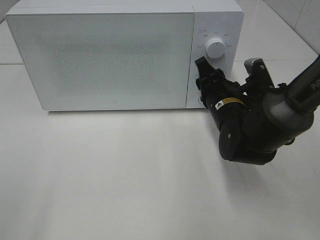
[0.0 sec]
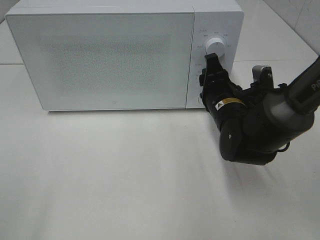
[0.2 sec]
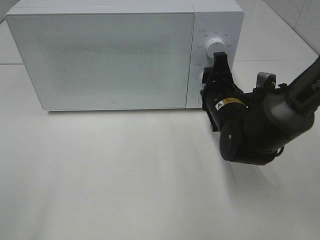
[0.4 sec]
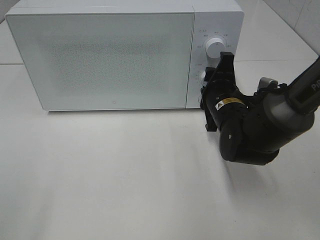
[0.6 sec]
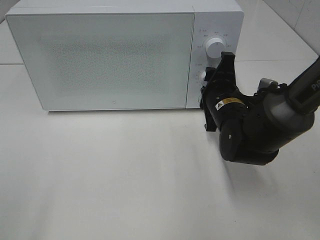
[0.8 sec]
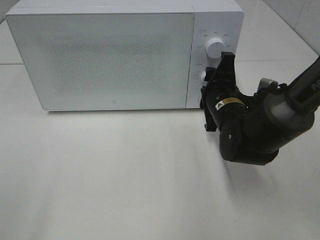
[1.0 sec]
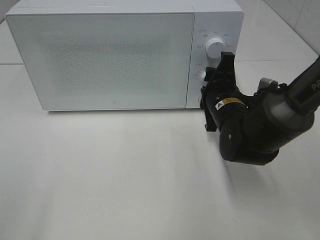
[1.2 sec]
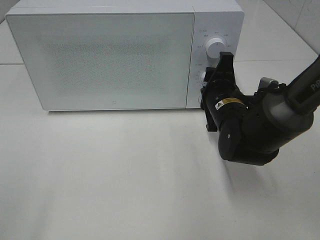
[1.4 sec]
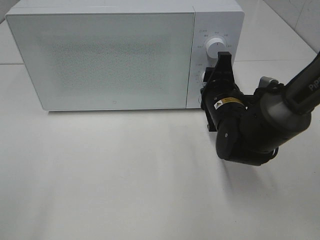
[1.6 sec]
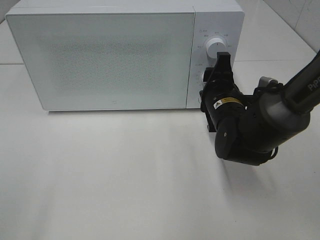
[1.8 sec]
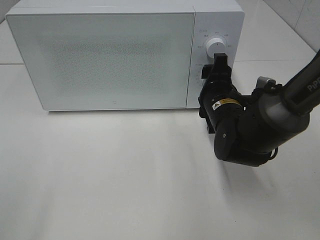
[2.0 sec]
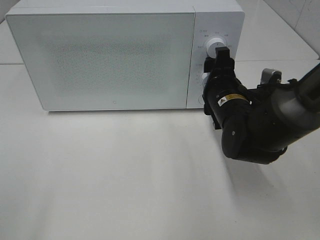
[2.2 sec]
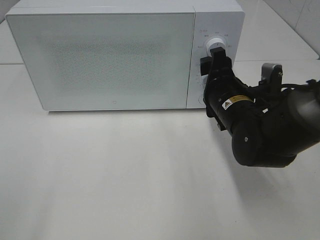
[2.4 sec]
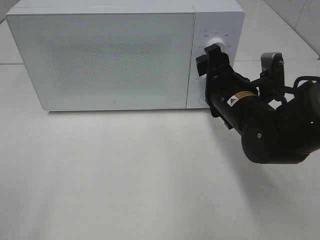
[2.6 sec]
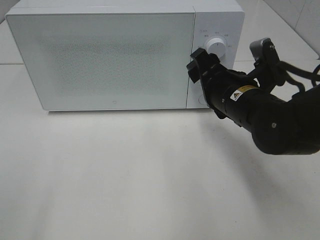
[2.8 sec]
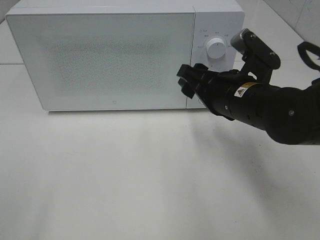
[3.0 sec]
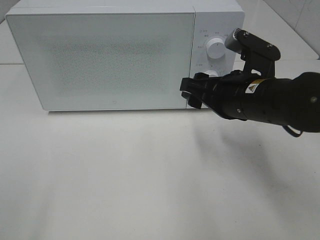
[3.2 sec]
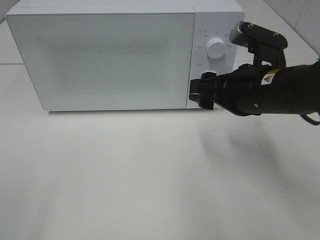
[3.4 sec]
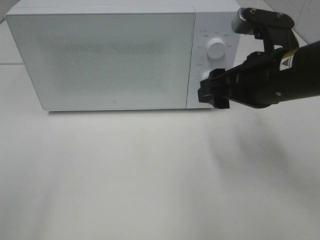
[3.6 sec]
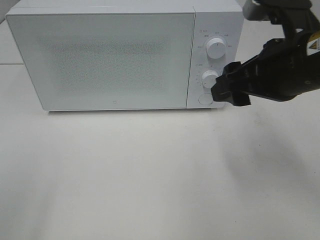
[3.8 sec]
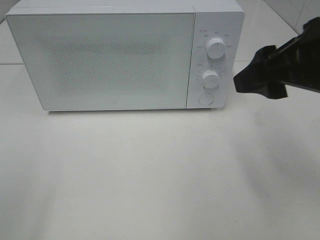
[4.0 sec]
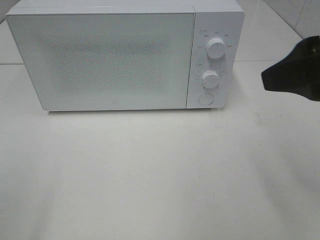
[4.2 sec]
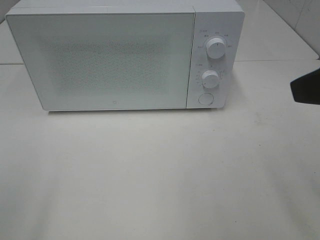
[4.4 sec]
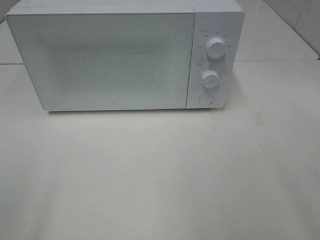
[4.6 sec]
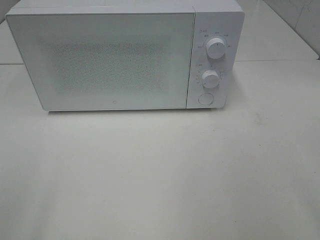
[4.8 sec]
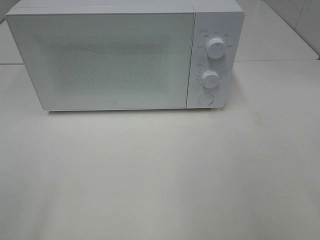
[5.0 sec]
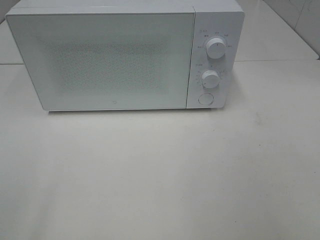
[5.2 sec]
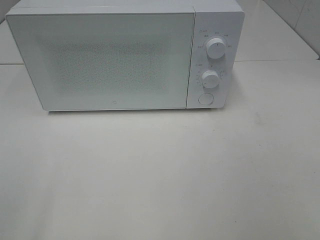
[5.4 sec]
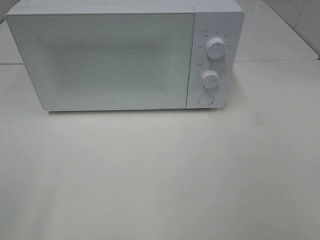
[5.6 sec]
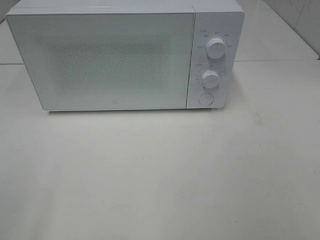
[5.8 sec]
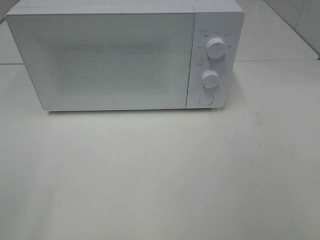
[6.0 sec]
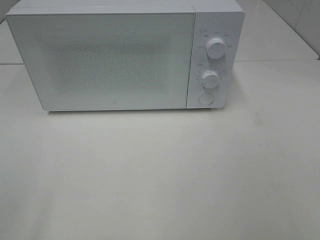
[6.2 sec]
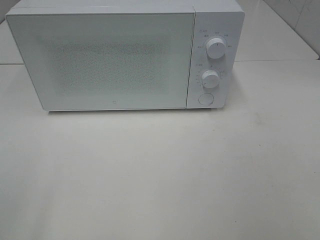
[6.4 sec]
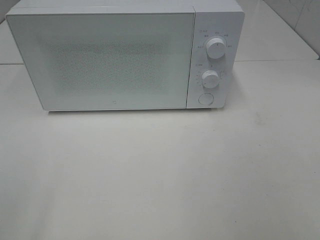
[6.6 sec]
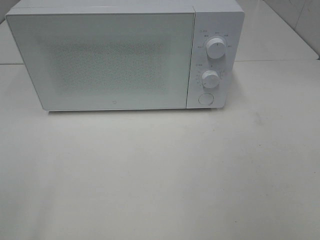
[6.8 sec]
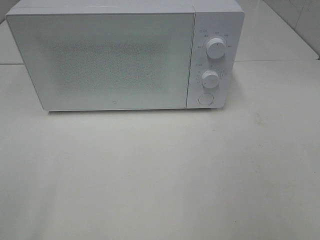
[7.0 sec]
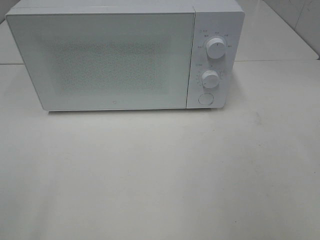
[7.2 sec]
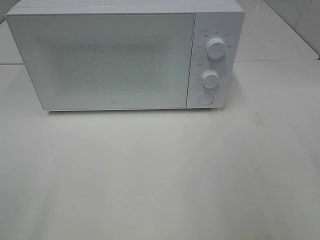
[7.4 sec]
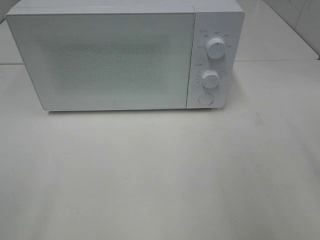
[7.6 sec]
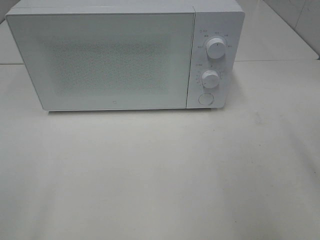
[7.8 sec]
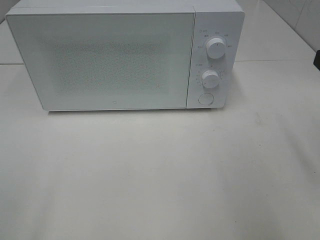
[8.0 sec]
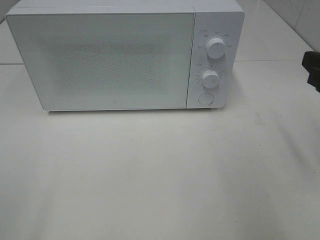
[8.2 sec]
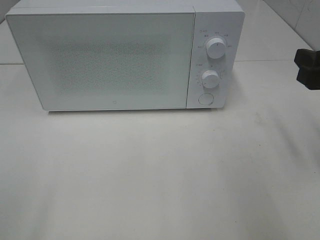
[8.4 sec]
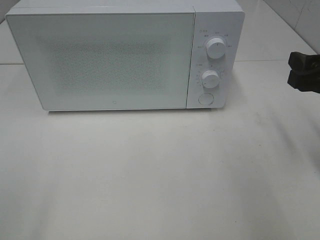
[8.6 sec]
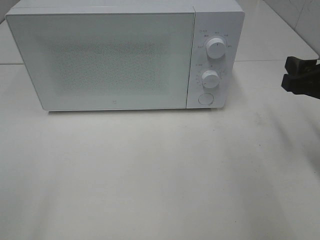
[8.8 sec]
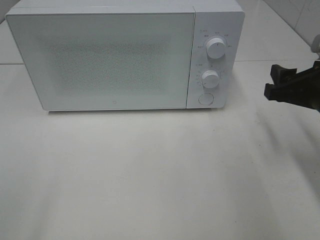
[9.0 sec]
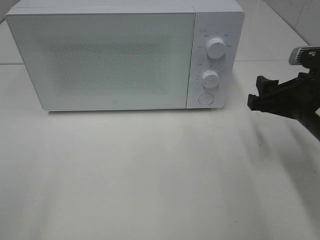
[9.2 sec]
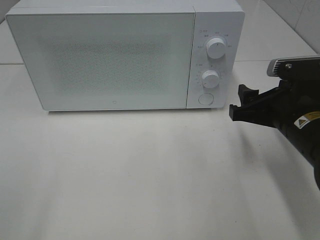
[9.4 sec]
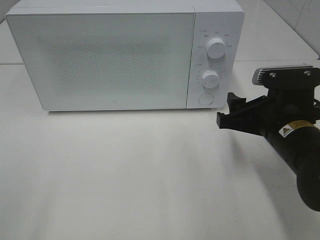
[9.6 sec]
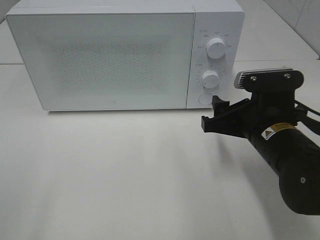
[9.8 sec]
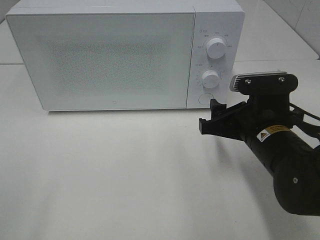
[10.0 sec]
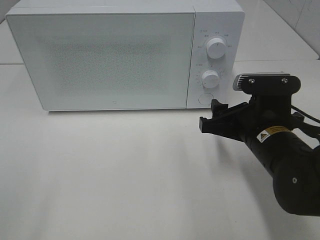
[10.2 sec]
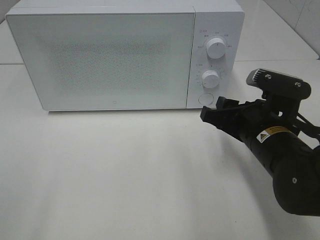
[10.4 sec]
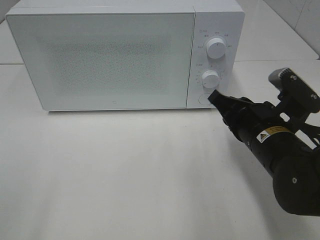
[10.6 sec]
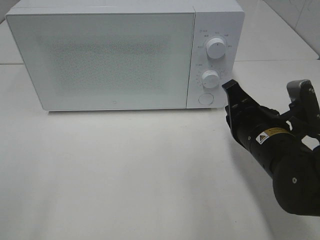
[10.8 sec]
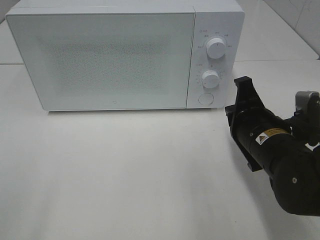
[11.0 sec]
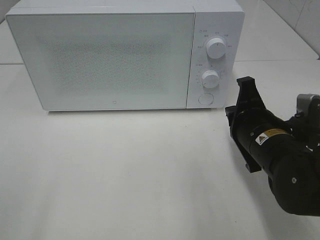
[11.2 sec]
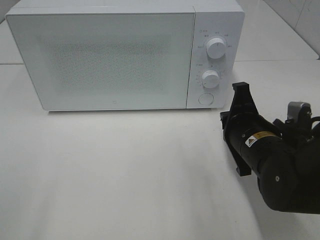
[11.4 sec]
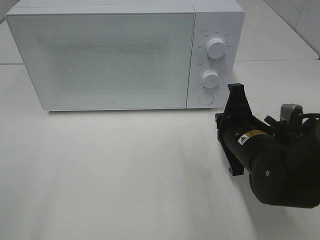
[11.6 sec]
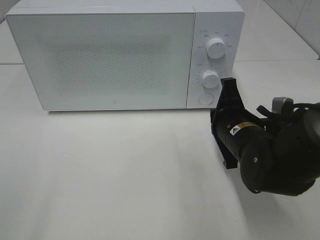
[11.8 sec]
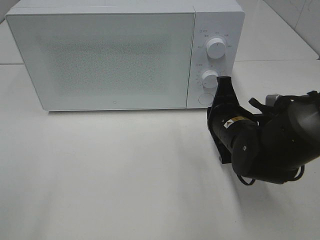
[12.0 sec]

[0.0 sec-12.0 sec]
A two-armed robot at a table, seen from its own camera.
Task of the whole recording: Heat the burger.
1.6 sec to 3.0 sec: The right gripper shifts roughly 10 cm upward and backward.
3.0 sec to 4.4 sec: The right gripper is displaced upward, backward and to the right by roughly 25 cm.
4.4 sec to 6.0 sec: The right gripper shifts roughly 15 cm backward and to the right.
7.6 sec to 9.0 sec: The right gripper is displaced downward and forward by approximately 15 cm.
9.0 sec to 10.4 sec: The right gripper heads to the left, covering about 10 cm.
10.4 sec to 12.0 sec: The right gripper ends up roughly 5 cm from where it was, and closes its fingers.

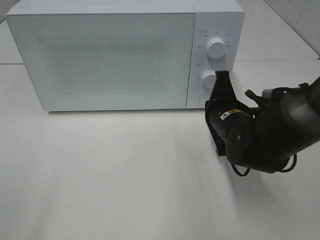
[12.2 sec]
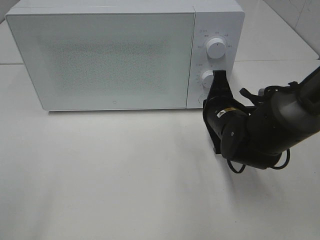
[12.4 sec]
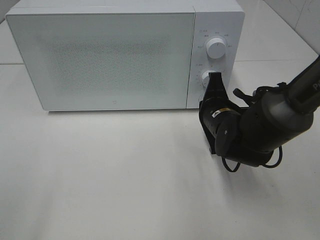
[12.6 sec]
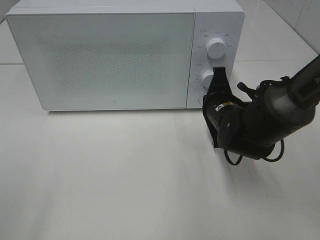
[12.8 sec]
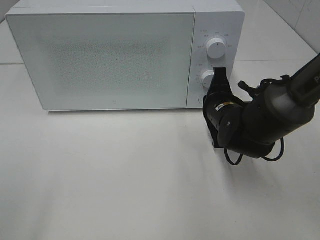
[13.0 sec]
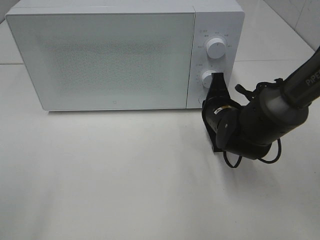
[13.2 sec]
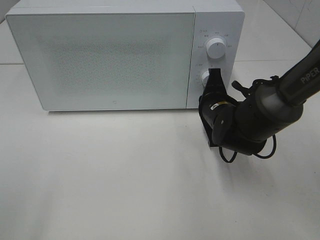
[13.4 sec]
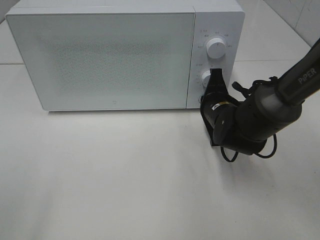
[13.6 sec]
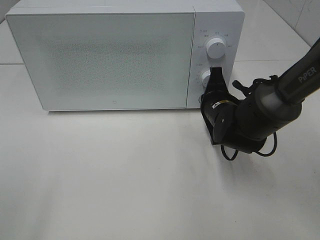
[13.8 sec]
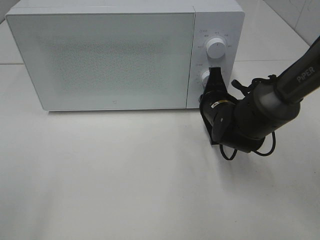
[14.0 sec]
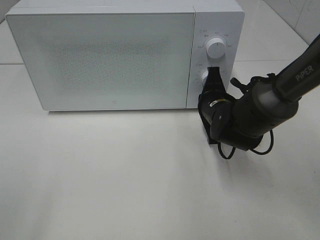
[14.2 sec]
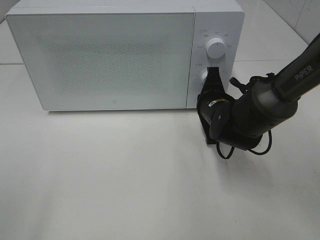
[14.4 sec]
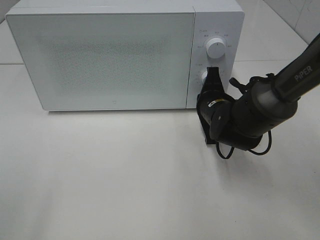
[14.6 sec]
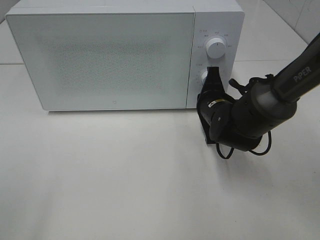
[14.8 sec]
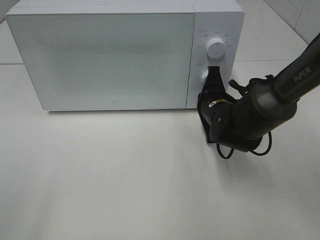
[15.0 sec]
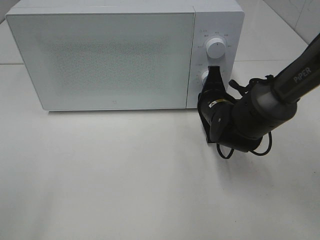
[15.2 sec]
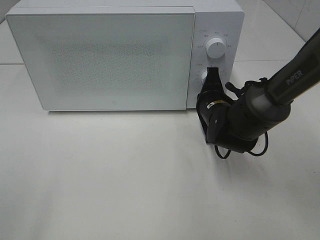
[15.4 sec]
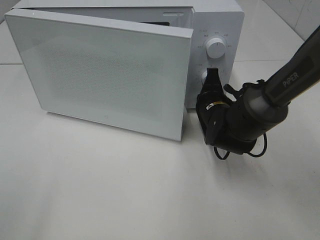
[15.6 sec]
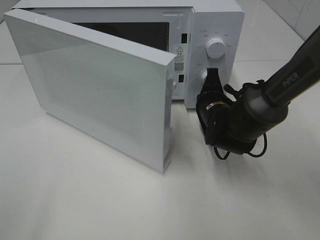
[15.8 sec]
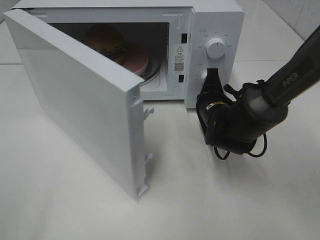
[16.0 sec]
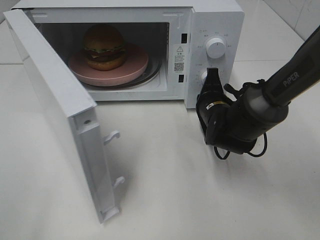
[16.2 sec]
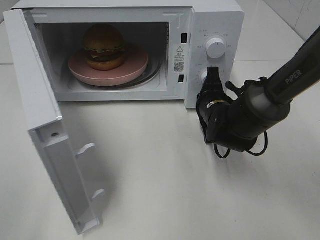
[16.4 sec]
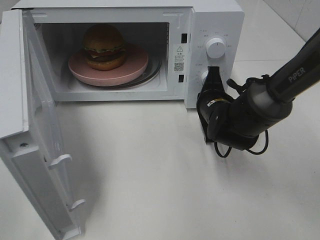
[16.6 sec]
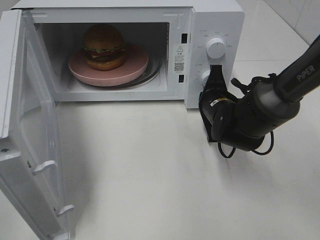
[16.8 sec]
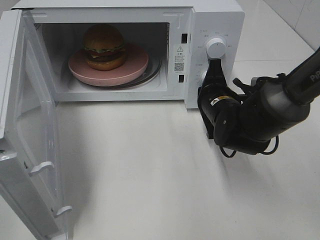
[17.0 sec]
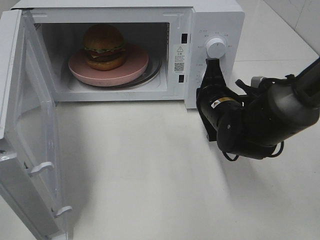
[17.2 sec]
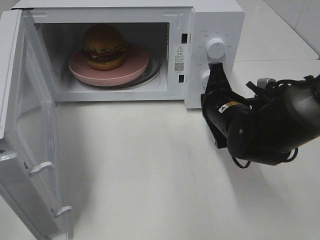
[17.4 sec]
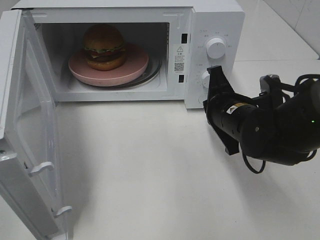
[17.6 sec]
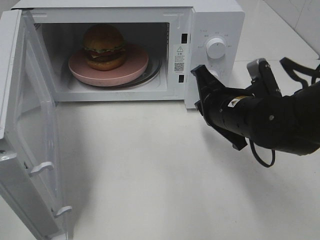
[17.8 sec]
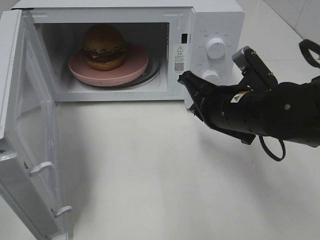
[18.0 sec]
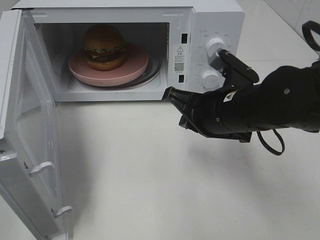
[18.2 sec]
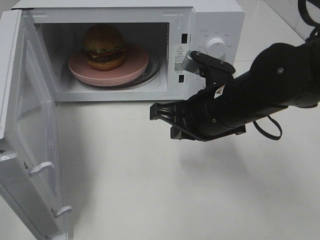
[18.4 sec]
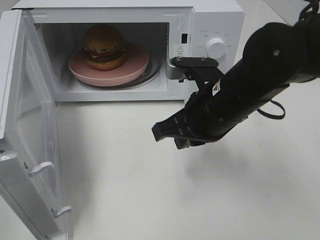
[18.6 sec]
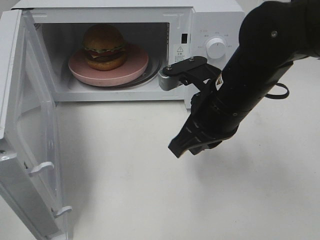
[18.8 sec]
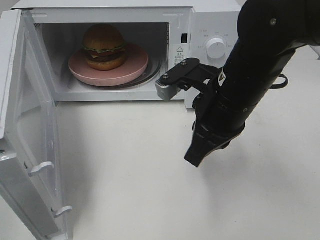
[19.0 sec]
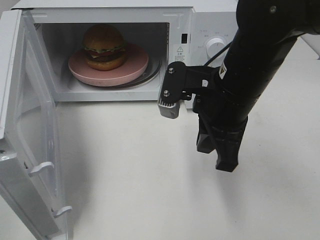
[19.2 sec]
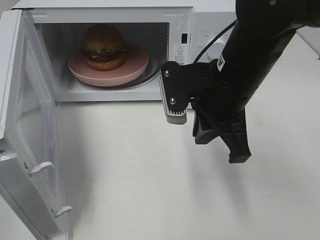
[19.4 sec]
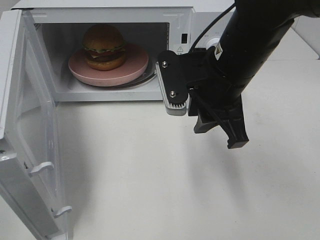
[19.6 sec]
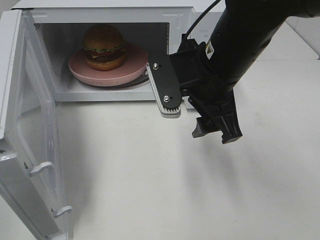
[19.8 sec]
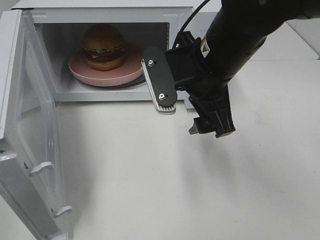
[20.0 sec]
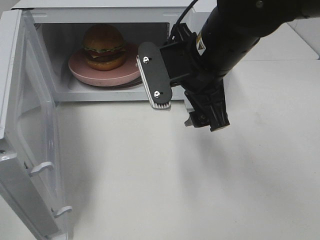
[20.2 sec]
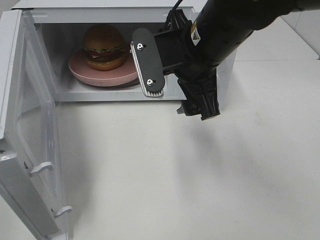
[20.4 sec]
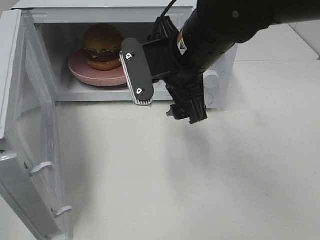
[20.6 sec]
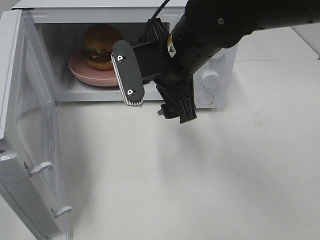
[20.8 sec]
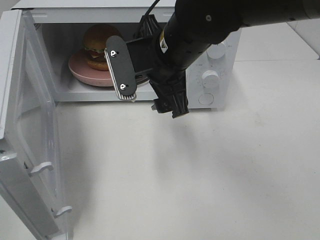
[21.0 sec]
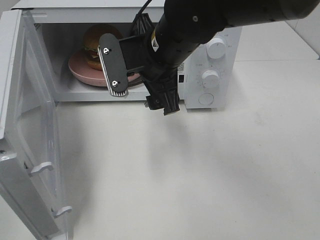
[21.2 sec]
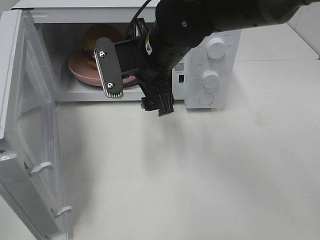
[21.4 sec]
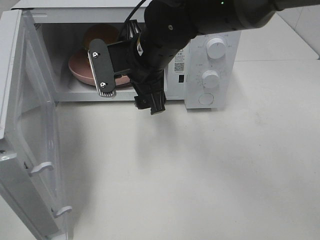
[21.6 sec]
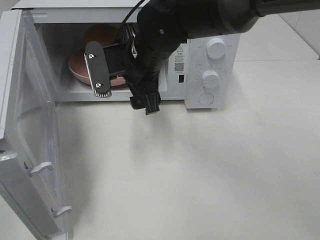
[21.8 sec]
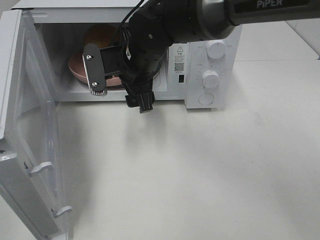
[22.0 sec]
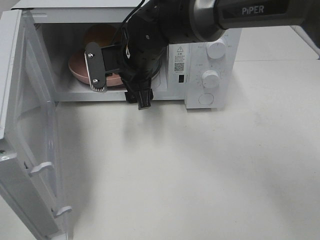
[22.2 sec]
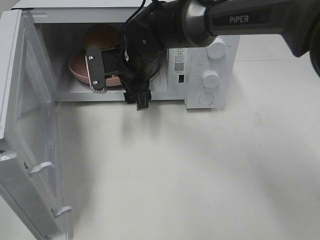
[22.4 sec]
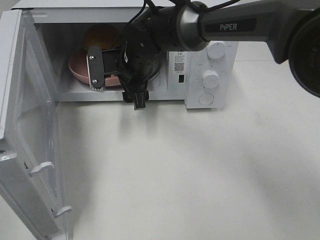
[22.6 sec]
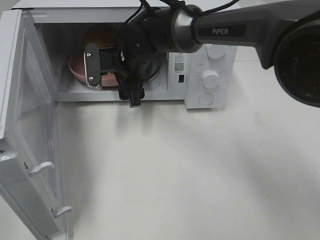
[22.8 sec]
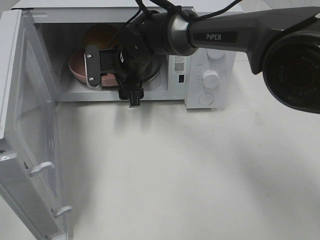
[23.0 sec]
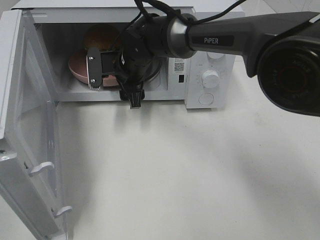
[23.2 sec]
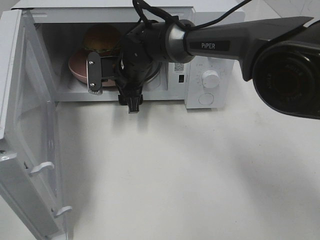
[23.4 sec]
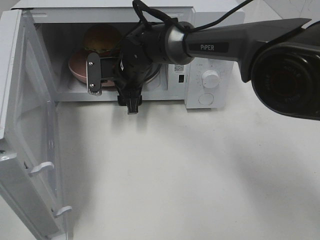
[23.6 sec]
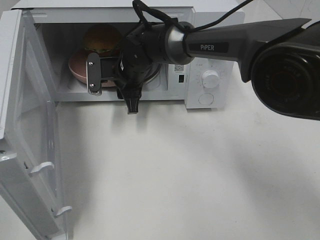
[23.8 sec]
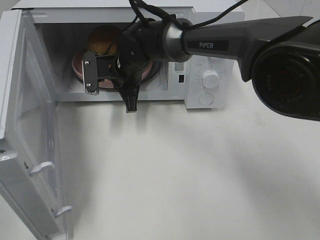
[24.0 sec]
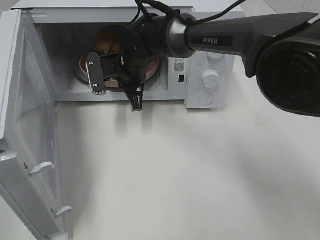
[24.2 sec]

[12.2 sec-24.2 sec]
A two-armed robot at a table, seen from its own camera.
Task of the whole recording: Heat the burger.
Step, 12.2 sec to 17.0 sec: Right hand: press the switch.
Step, 17.2 sec to 23.8 sec: Right hand: grab the plate with the hamburger.
12.2 sec to 13.8 sec: The right gripper ends up approximately 5 cm from where it was.
13.8 sec to 15.2 sec: Neither gripper changes place.
16.6 sec to 18.2 sec: The right gripper goes roughly 15 cm backward and upward.
18.2 sec to 19.8 sec: The right gripper moves upward, roughly 5 cm, and opens its fingers.
19.8 sec to 21.2 sec: The right gripper moves to the left, approximately 5 cm.
21.2 sec to 22.6 sec: The right gripper moves forward and downward, approximately 10 cm.
22.6 sec to 24.2 sec: The right gripper closes up.
